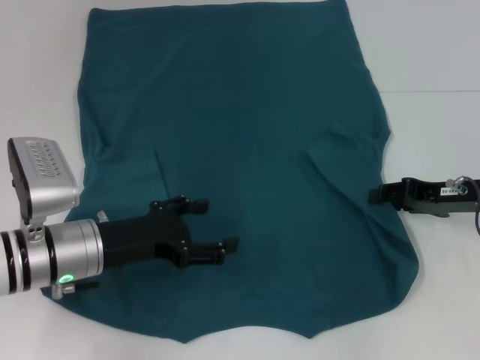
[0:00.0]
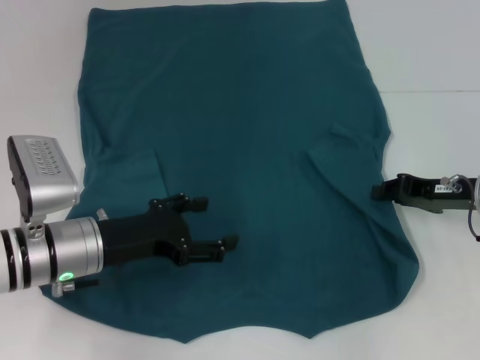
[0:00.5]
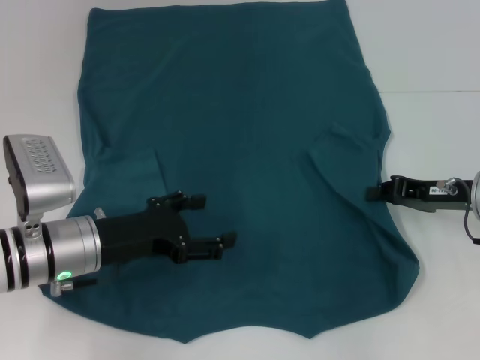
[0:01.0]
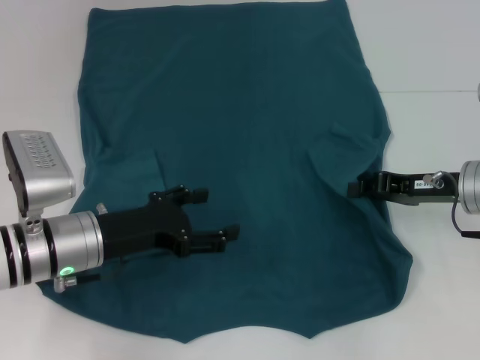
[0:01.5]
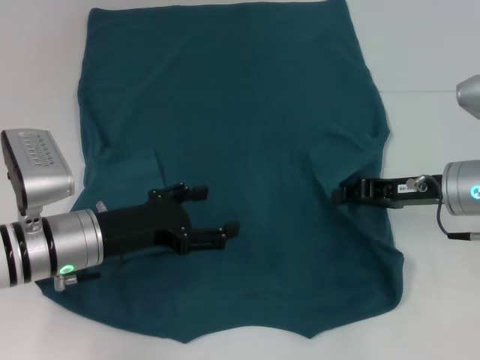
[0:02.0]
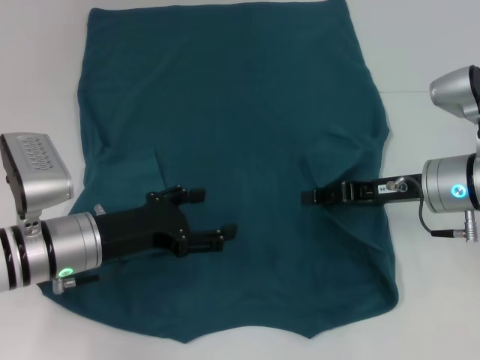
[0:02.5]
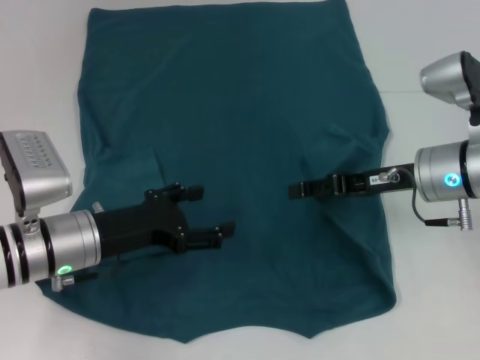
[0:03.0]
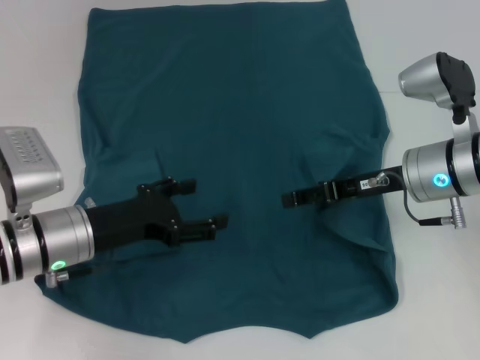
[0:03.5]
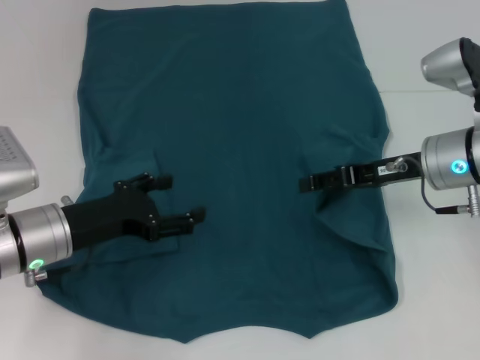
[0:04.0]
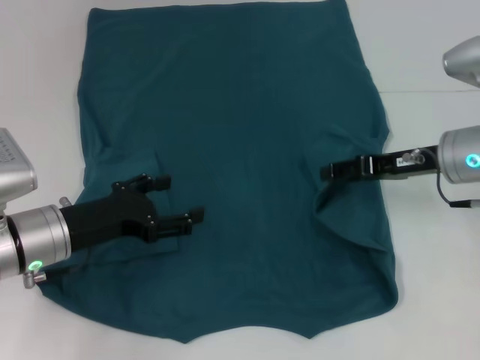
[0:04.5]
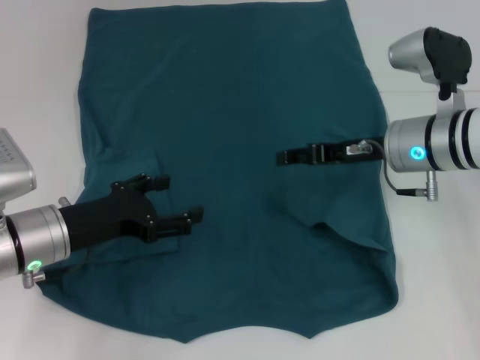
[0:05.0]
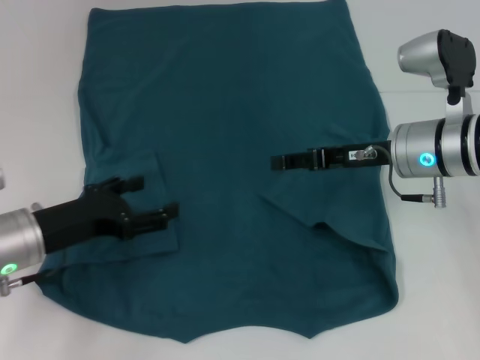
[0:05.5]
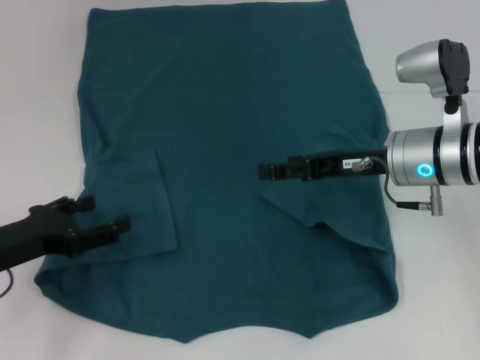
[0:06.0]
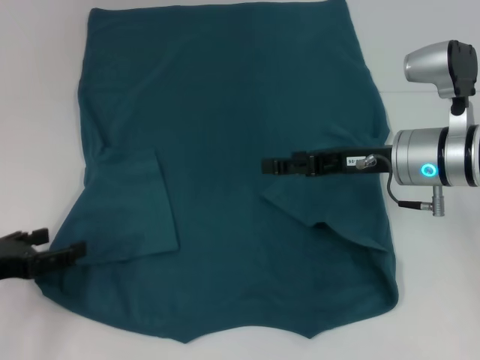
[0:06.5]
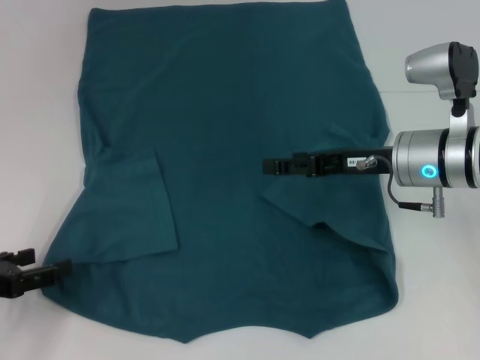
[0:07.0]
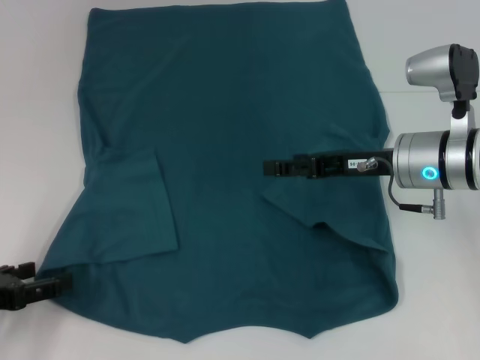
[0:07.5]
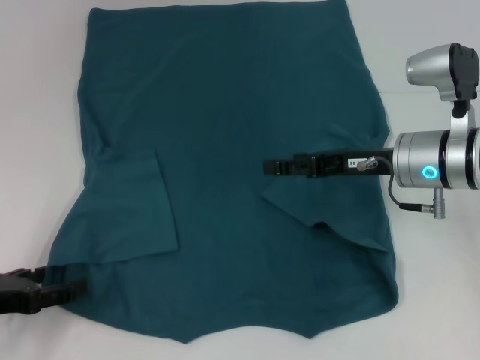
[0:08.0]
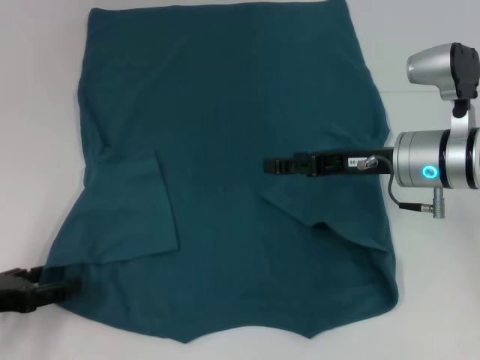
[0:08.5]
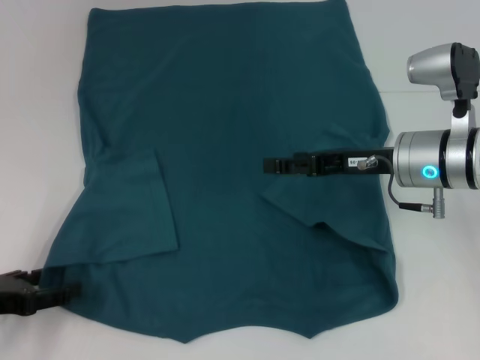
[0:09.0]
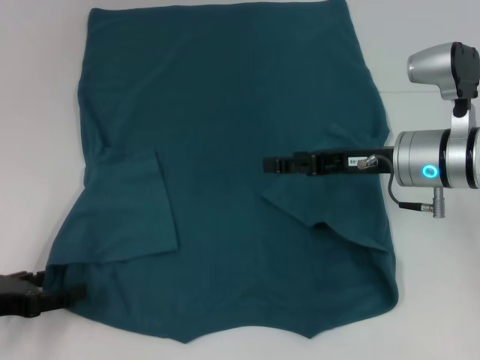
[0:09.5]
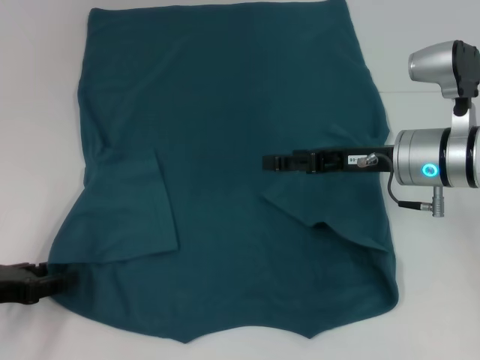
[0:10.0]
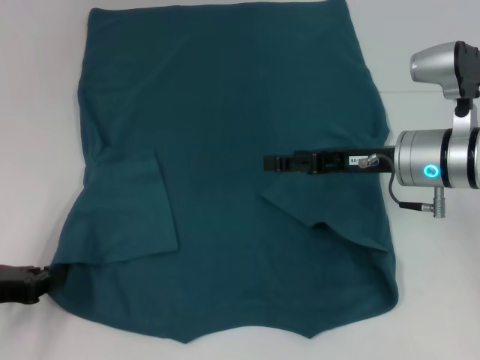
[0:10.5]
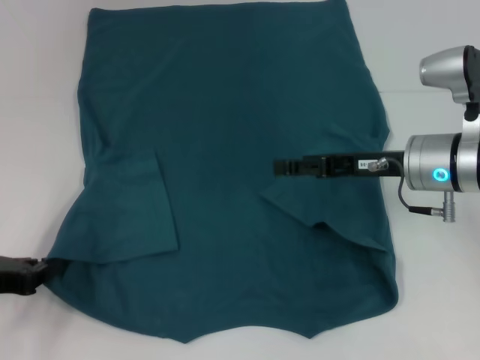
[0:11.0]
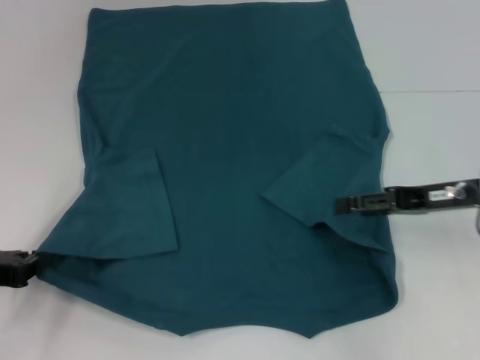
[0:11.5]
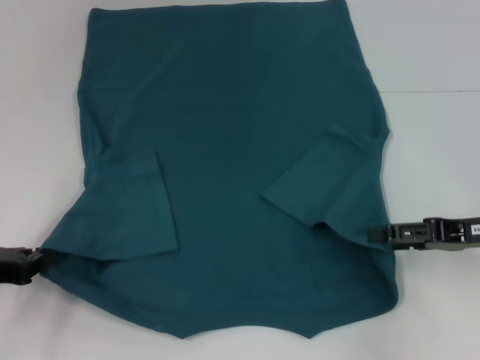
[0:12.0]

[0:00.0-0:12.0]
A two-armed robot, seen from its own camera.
Step, 0:00.0 to 0:05.0: Fold the bottom right sleeve to the right.
Step, 0:05.5 to 0:10.5: Grab the bottom left corner with your left hand.
0:00.0 to 0:02.0: The right gripper closes its fingers.
0:02.0 to 0:04.0: The right gripper opens its fingers.
0:04.0 to 0:06.0: The left gripper goes roughly 5 cm to the left.
0:06.0 to 0:08.0: The left gripper shifts by about 5 cm.
0:08.0 to 0:10.0: The grippers stay close to where they were, moving slightly.
0:10.0 to 0:12.0: The right gripper shifts roughly 15 cm to the right and backward. The left gripper closes.

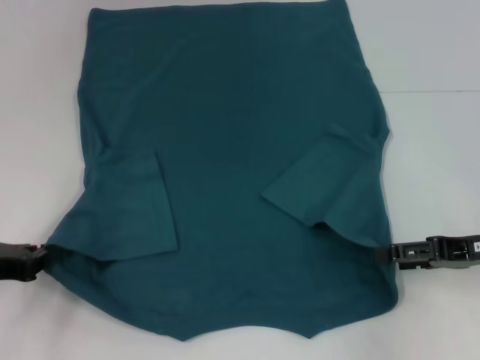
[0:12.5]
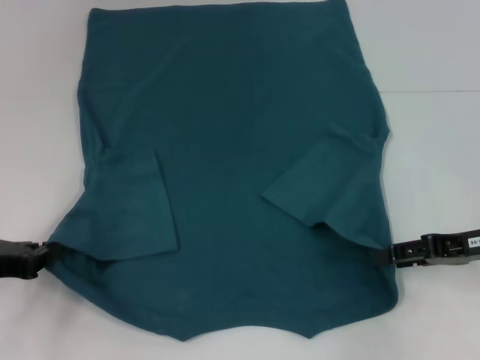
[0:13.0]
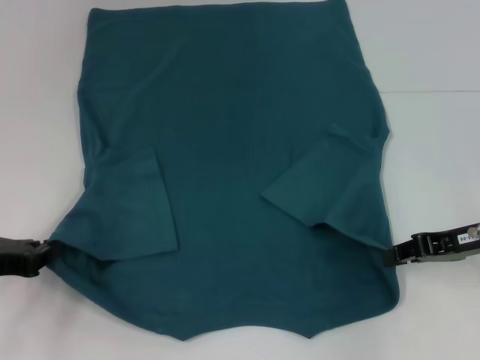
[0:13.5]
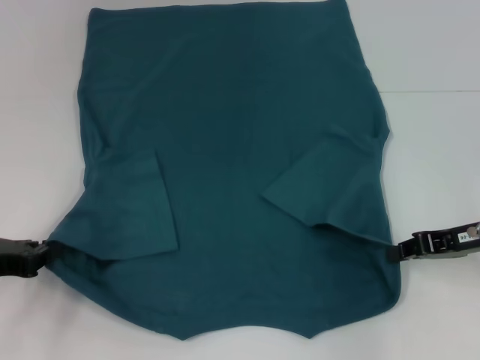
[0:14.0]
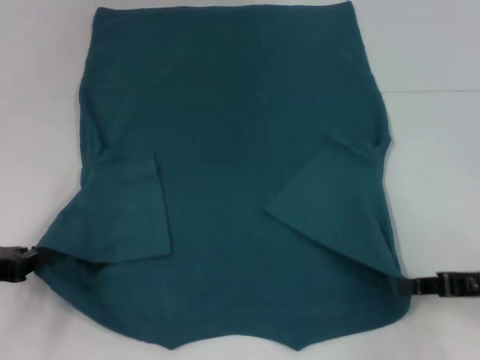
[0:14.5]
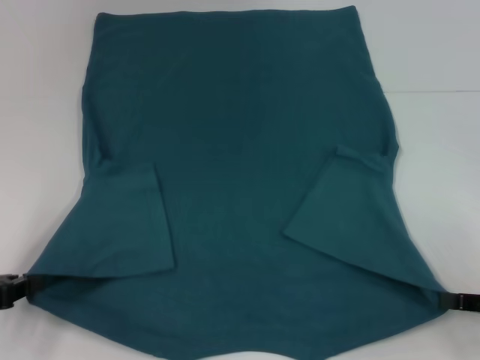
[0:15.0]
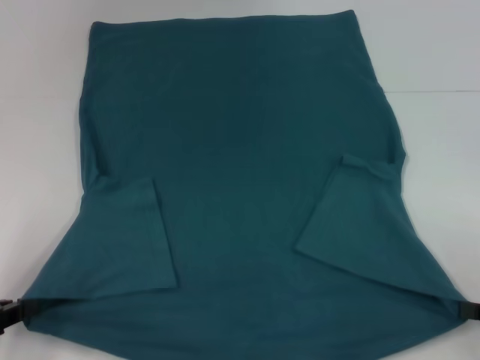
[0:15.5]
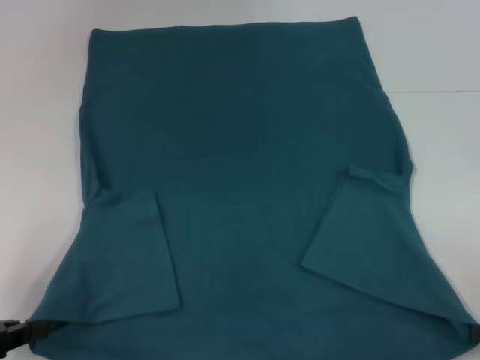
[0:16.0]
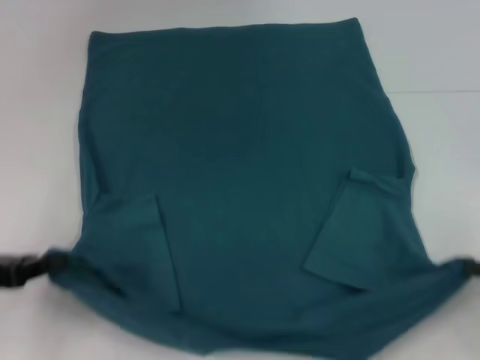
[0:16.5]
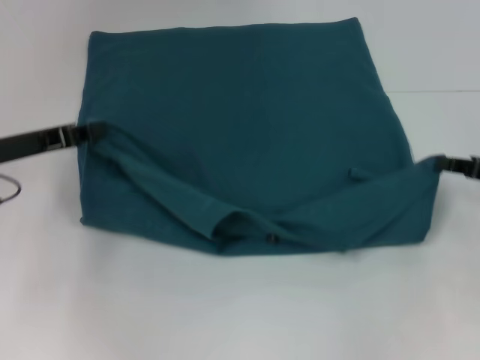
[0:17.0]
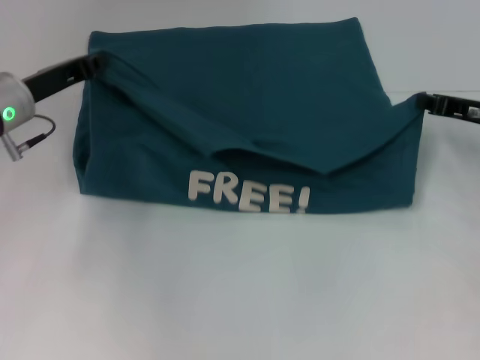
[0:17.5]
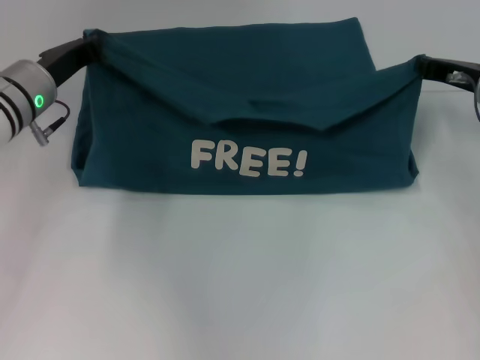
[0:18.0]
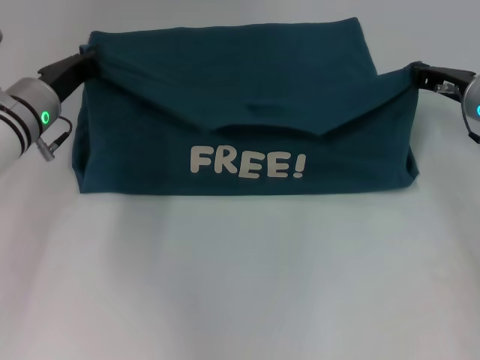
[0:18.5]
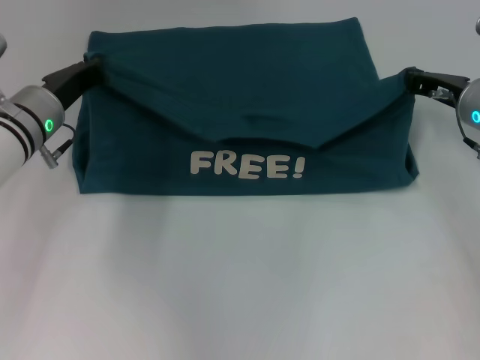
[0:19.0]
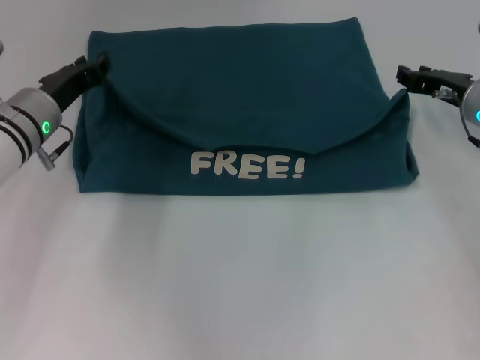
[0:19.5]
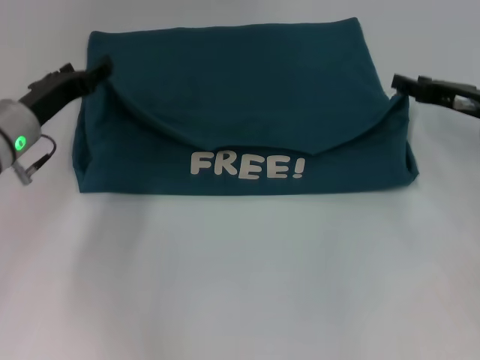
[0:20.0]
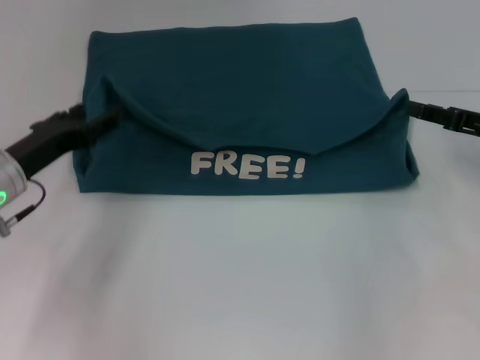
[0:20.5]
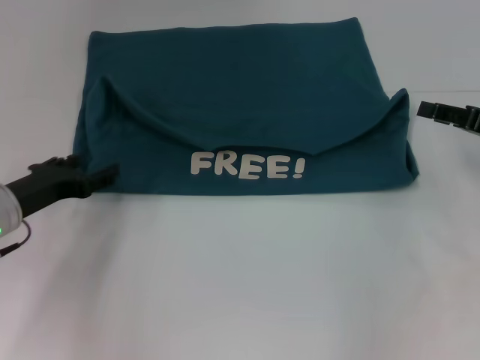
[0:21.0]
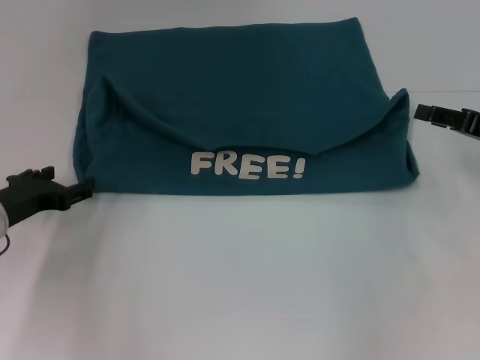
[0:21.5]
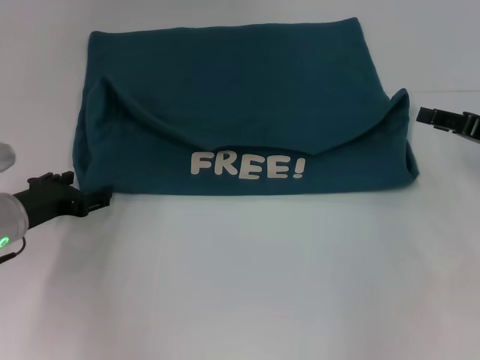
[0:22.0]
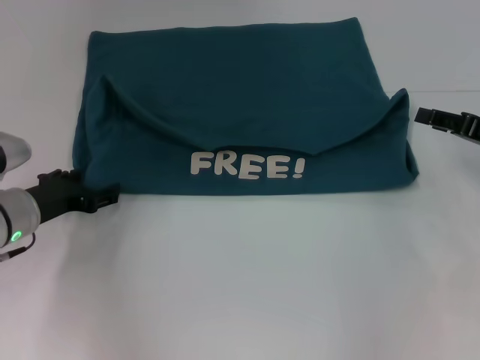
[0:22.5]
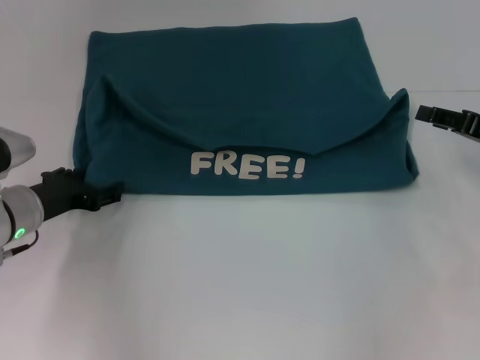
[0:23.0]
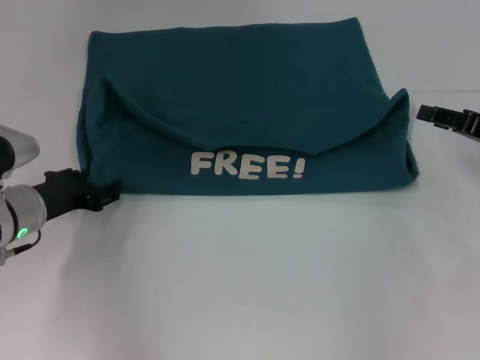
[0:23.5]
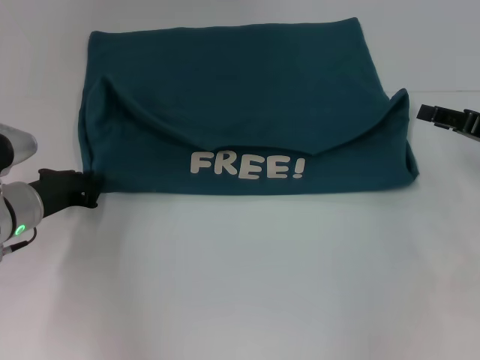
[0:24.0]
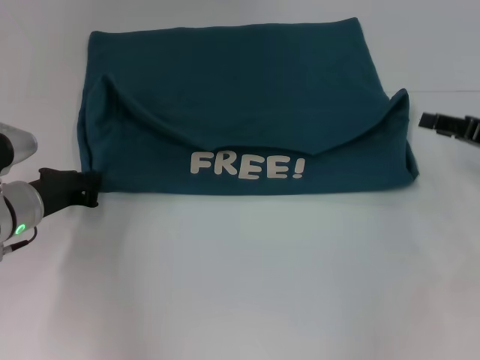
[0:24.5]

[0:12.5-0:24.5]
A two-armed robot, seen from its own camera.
Step, 0:14.5 to 0:19.5: Fold the clothes to the left.
Step, 0:14.5 to 0:19.5: Fold the clothes to the right.
0:12.5 to 0:14.5: The right gripper closes its fingers.
0:14.5 to 0:16.5: The right gripper moves to the right, roughly 5 cm.
0:16.5 to 0:18.5: The left gripper is displaced forward and to the right by approximately 25 cm. The right gripper shifts approximately 25 cm forward and to the left.
0:18.5 to 0:20.5: The right gripper shifts approximately 10 cm backward and to the right, and opens. The left gripper heads backward, covering roughly 10 cm, and opens up.
0:22.5 to 0:24.5: The left gripper closes its fingers.

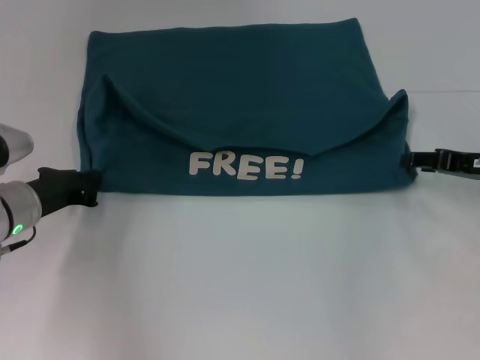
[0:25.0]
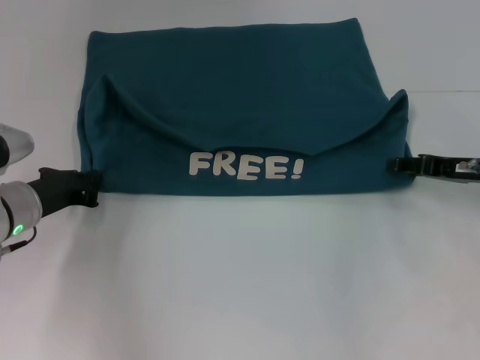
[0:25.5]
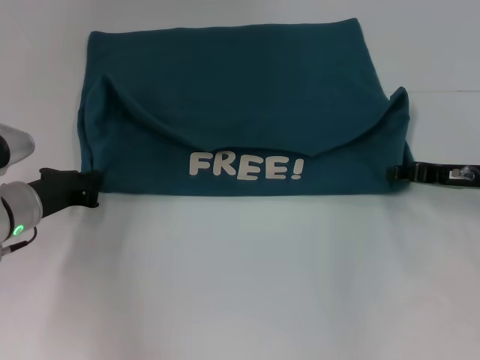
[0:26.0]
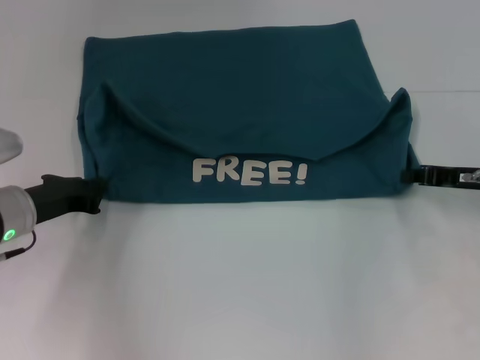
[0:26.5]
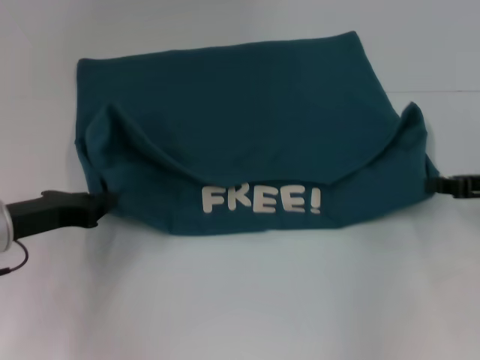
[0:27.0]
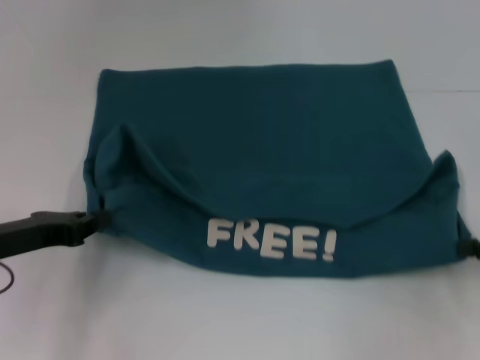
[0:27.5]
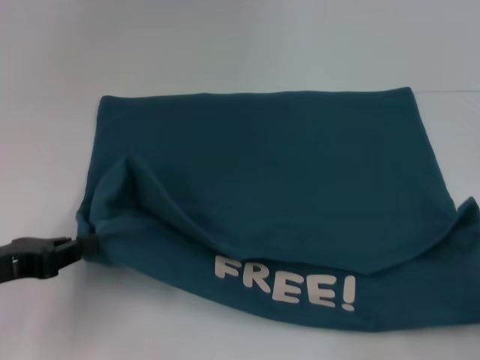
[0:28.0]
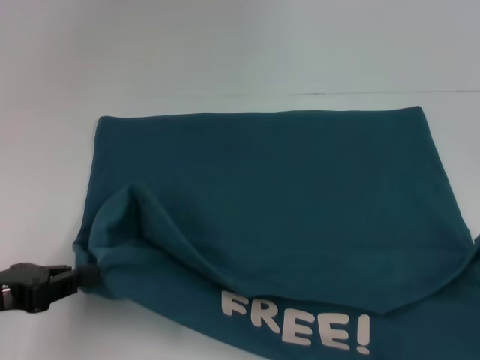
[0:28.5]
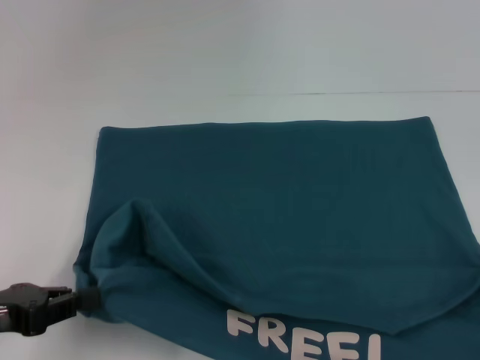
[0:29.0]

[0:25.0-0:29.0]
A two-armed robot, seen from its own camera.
Step, 0:25.0 to 0:28.5: Pull the clothes with your left hand.
Step, 0:25.0 to 0:28.5: Pull the clothes with your right hand.
0:25.0 to 0:27.0: The left gripper changes place by roughly 5 cm, while the right gripper closes its fingers.
0:27.0 to 0:29.0: The right gripper travels backward by roughly 20 cm; the left gripper shifts about 10 cm backward.
